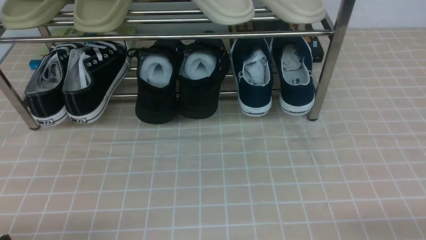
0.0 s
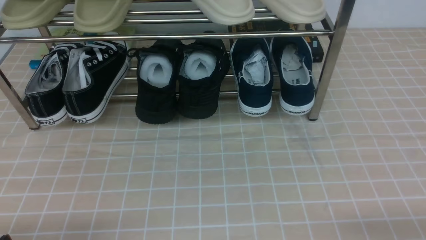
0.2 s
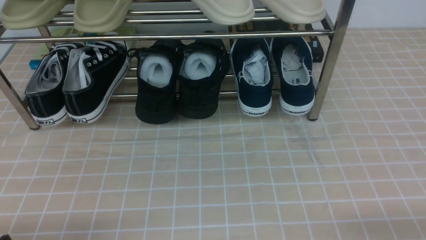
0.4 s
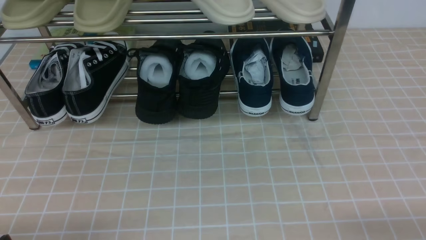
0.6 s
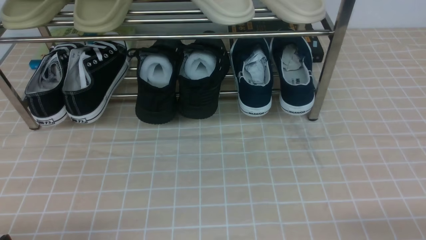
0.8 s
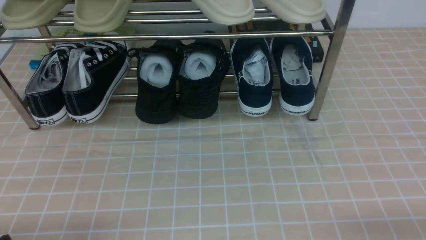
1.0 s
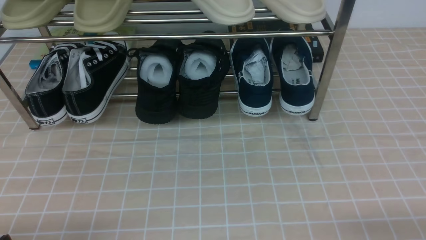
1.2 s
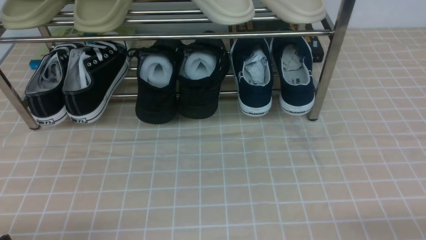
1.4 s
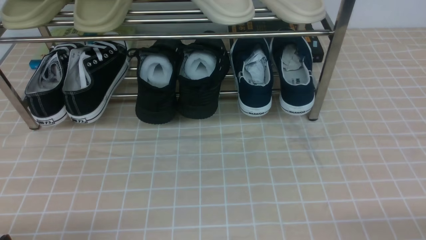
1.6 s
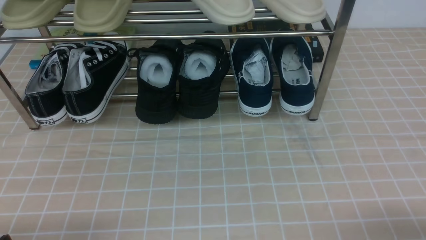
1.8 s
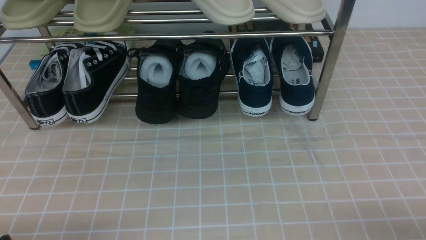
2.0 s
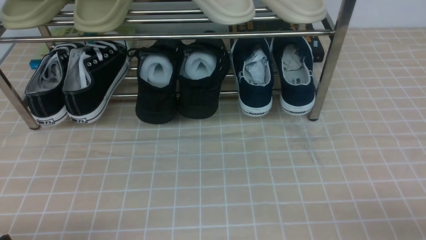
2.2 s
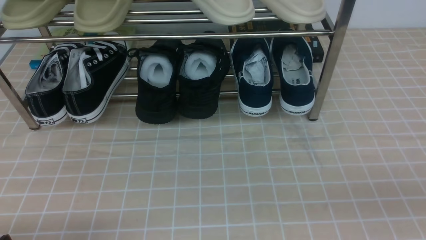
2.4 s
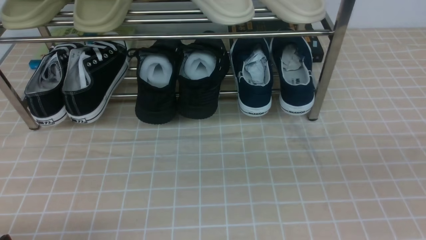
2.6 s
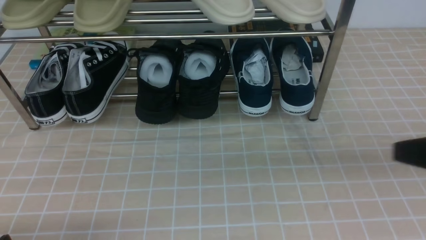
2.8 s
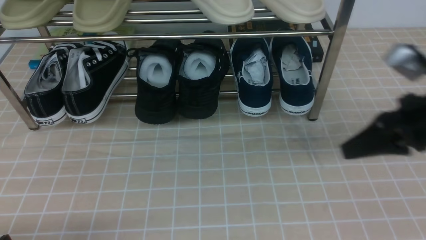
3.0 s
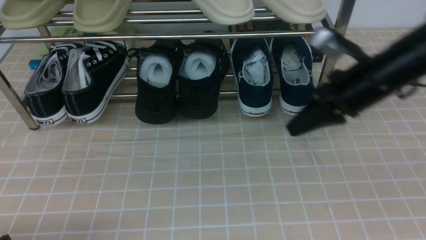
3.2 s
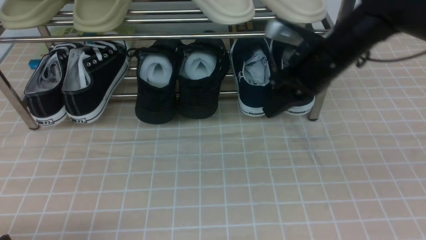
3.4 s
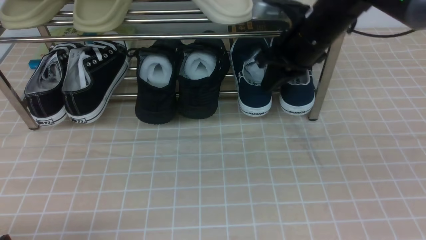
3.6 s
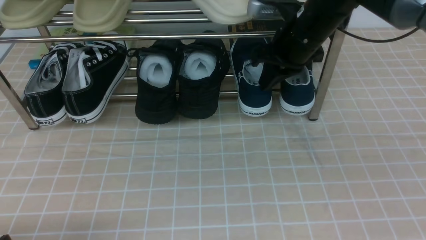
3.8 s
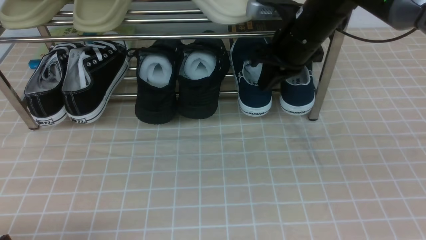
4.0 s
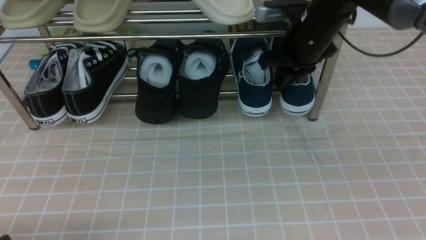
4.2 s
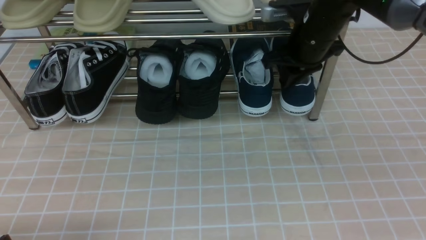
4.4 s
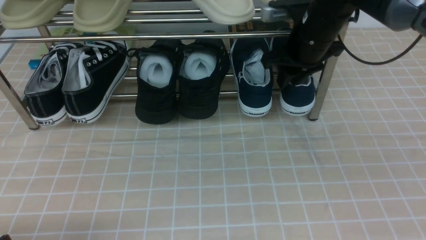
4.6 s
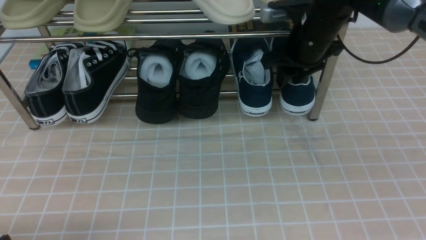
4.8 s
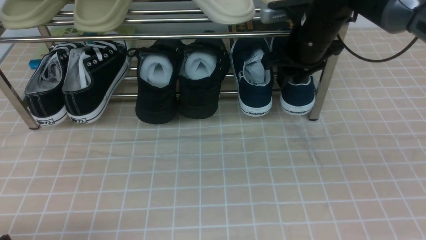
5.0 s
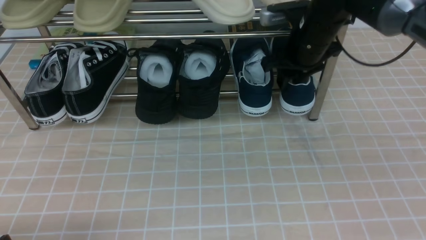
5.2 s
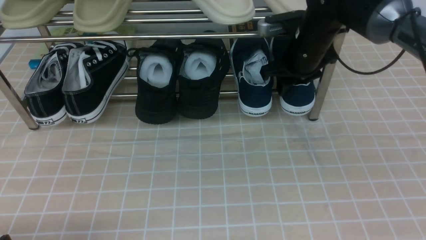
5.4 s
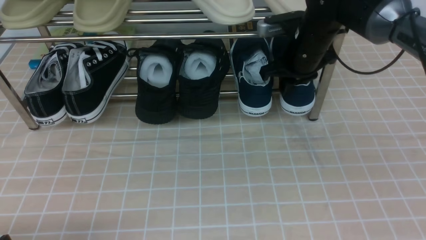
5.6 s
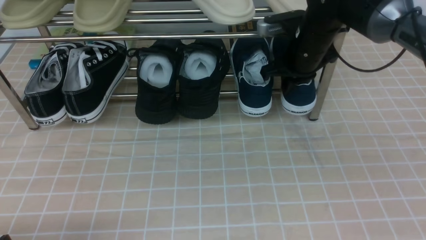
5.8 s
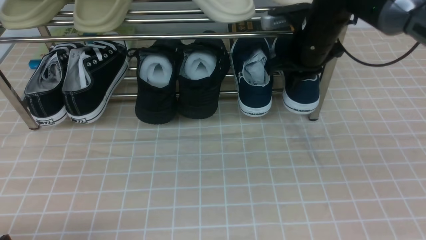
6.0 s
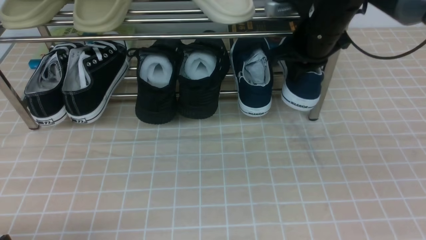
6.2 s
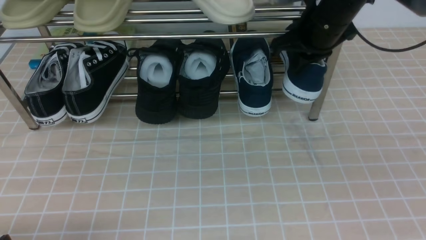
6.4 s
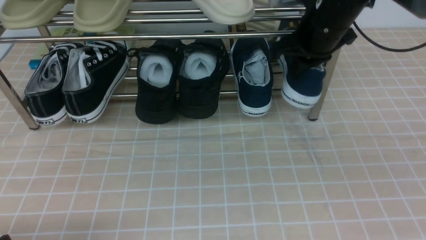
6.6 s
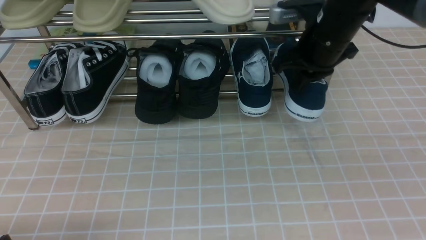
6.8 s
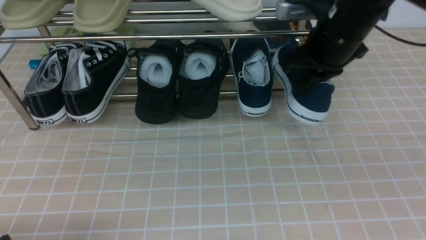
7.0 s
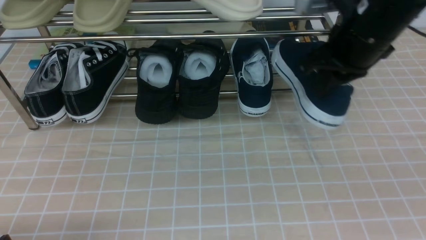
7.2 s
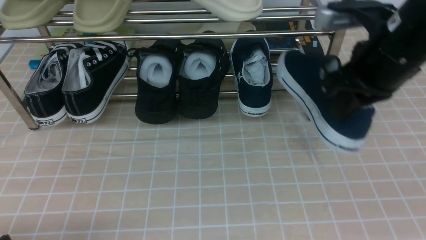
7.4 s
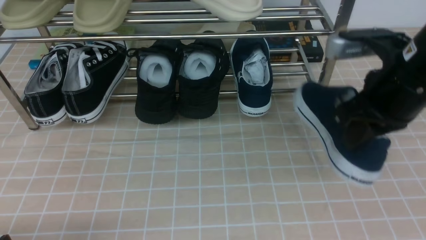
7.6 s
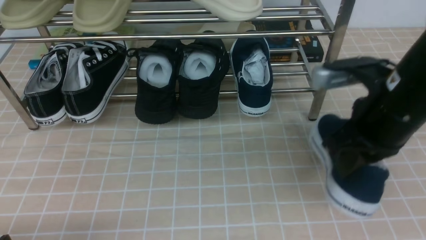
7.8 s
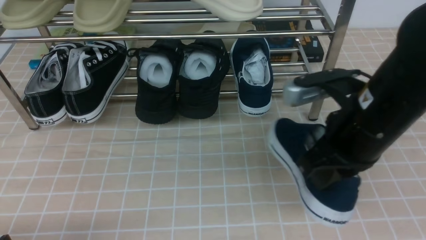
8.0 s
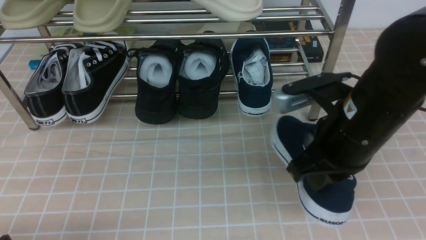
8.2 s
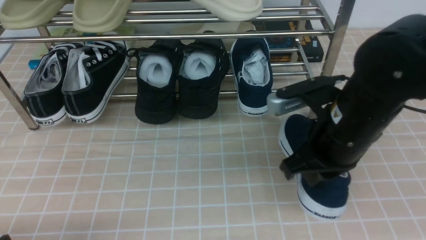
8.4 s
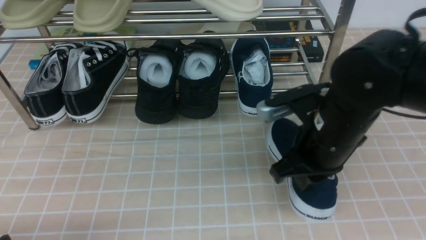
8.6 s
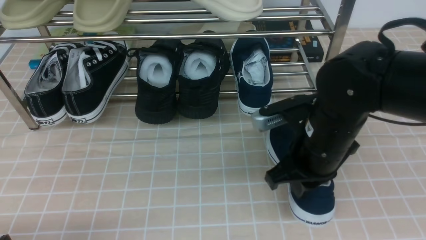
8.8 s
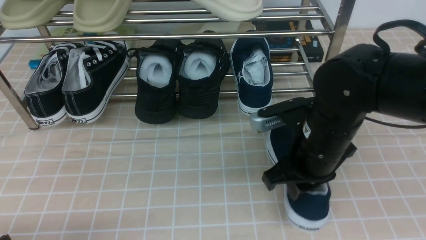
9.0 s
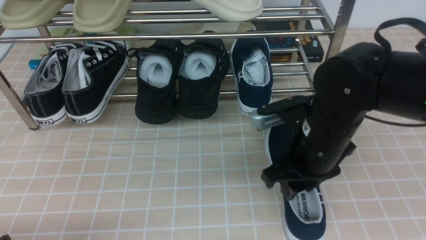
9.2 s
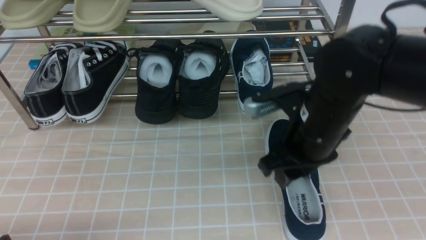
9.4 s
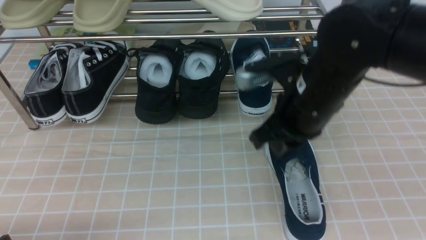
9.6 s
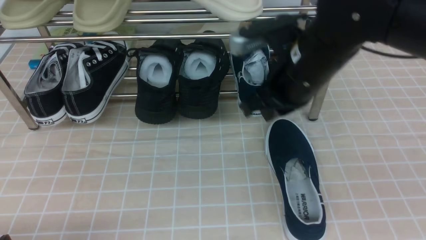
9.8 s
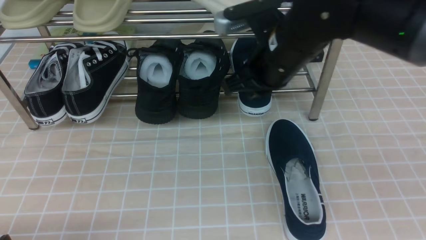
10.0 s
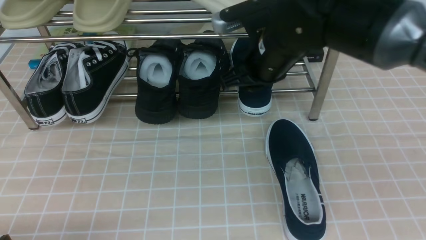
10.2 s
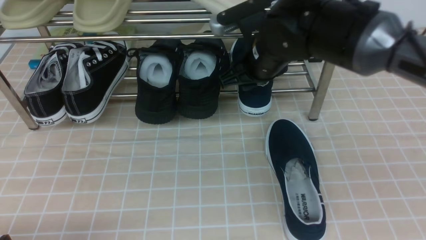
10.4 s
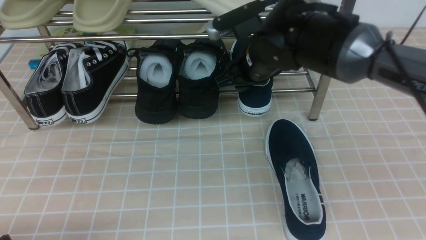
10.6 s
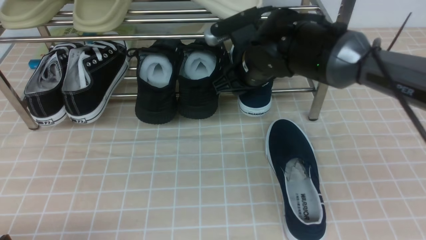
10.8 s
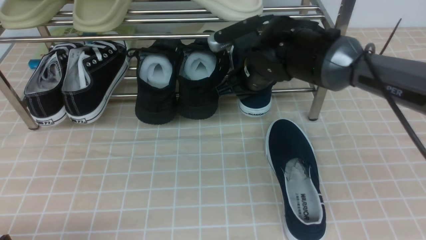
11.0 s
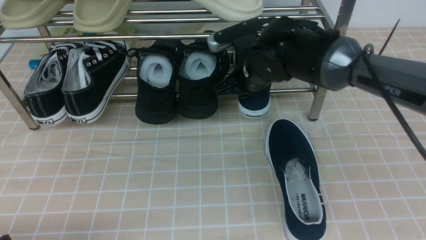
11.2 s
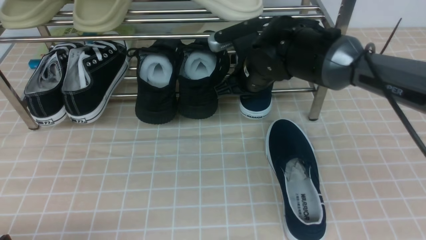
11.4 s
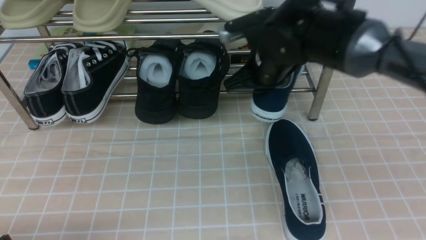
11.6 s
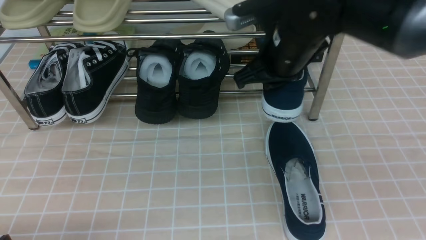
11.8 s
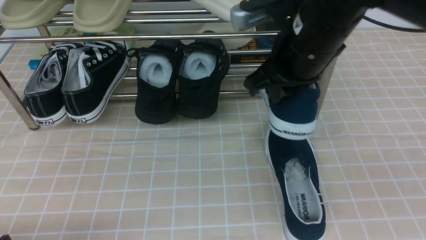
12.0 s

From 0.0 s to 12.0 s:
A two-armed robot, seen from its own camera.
Step, from 0.0 s to 5.6 s: use the right arm to clamp a shoe on the right side of the shoe rack.
Step, from 5.8 s to 9.4 s: use the right arm to take out the clamped shoe from the shoe rack and put it down.
Step, from 9.6 s to 11.0 s: use the right arm to clamp a shoe on the right side of the shoe rack.
From 1.6 s to 3.0 s: The right gripper shifts roughly 25 cm forward and upward, and closes up.
From 3.0 s to 4.4 s: The right gripper heads forward and to the left, covering about 20 cm, and opens its fingers.
From 4.4 s to 6.0 s: The right gripper closes.
From 6.0 s to 7.6 s: The right gripper travels backward by some 15 cm.
From 7.6 s to 9.0 s: The right gripper goes about 10 cm downward and to the left, and opens its fingers.
From 9.0 s to 10.4 s: The right gripper travels forward and to the left by about 15 cm, and opens.
From 10.4 s to 12.0 s: The right gripper shifts about 10 cm backward and upward, and closes up.

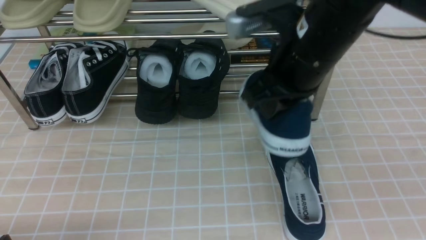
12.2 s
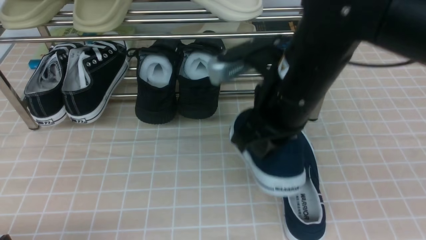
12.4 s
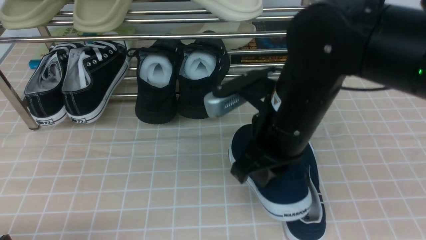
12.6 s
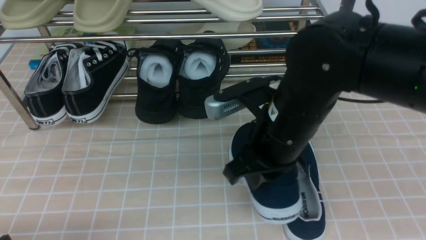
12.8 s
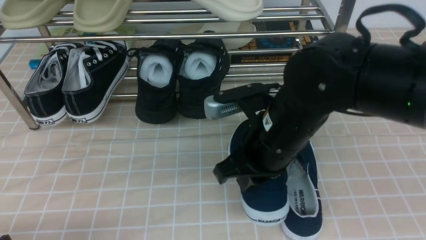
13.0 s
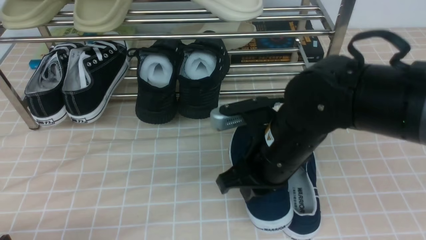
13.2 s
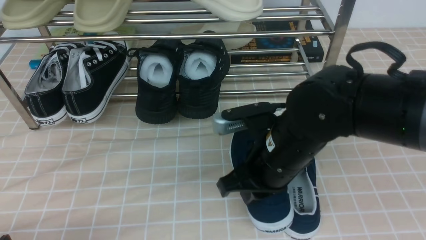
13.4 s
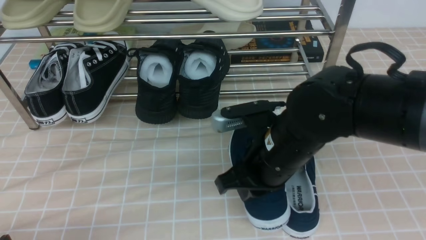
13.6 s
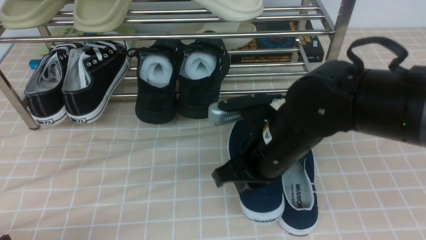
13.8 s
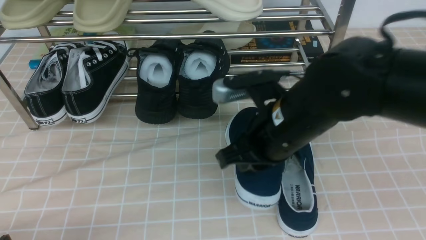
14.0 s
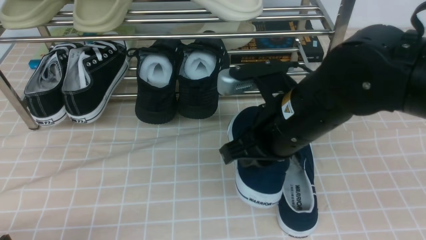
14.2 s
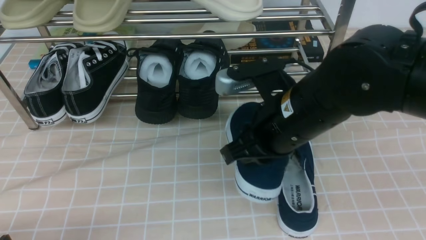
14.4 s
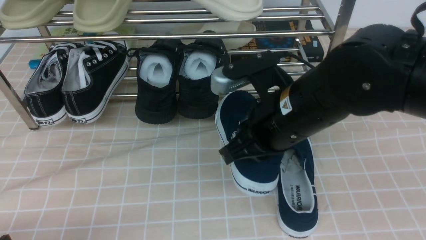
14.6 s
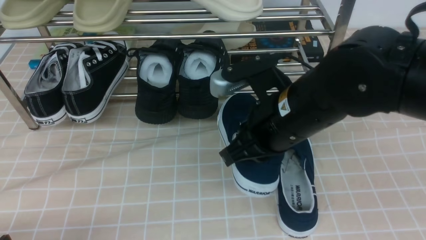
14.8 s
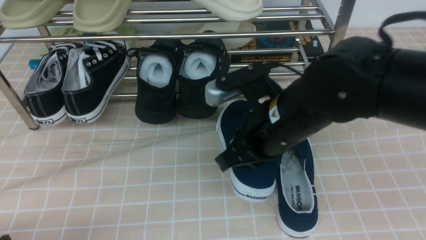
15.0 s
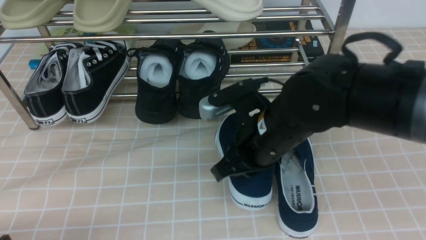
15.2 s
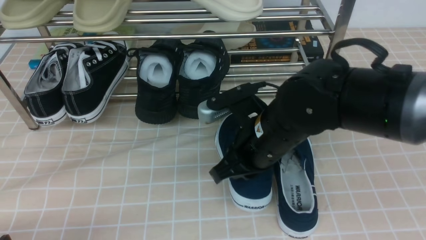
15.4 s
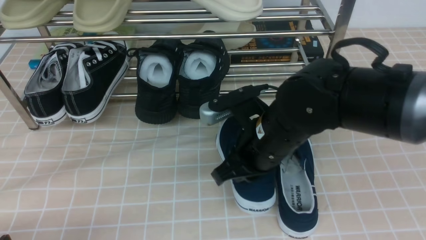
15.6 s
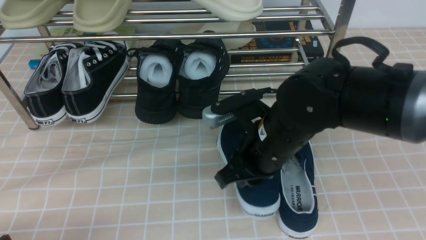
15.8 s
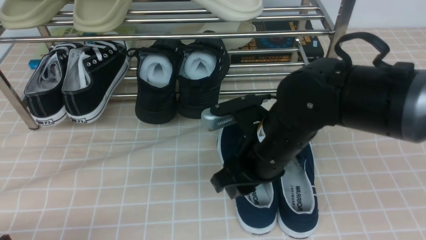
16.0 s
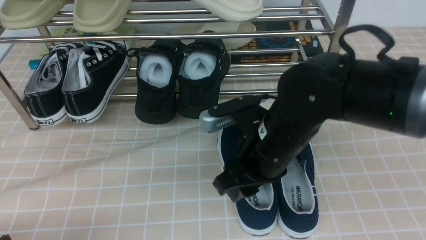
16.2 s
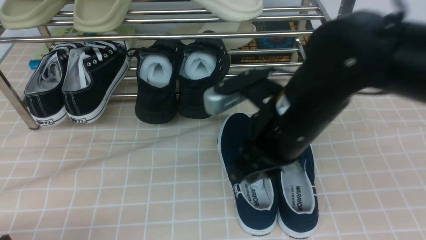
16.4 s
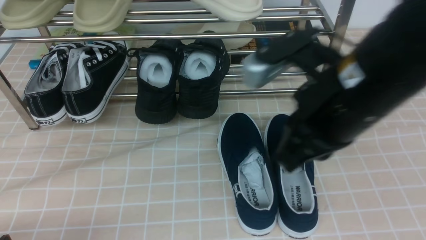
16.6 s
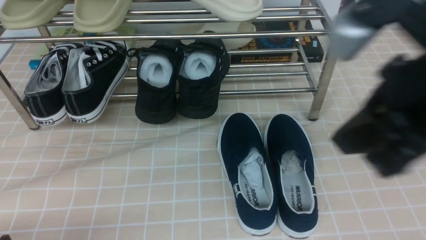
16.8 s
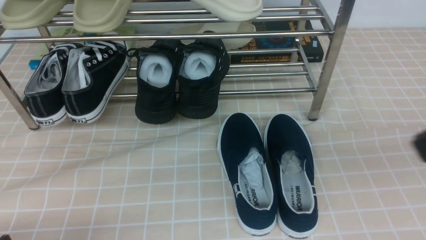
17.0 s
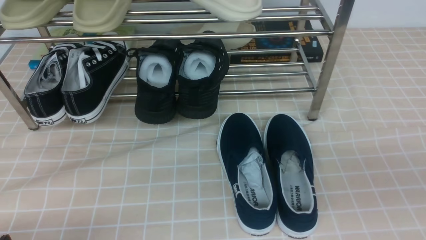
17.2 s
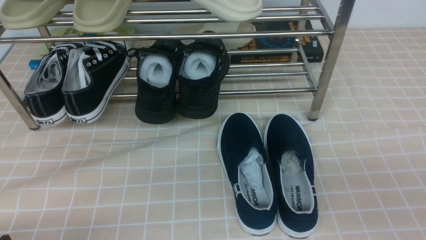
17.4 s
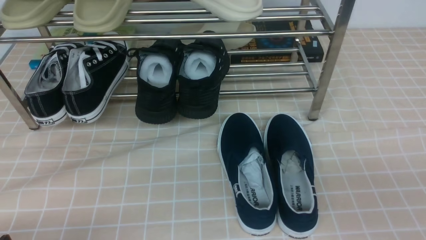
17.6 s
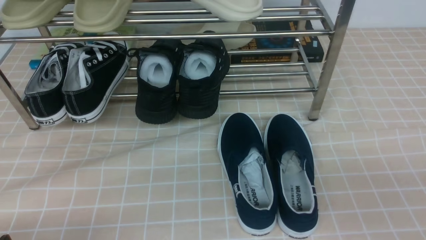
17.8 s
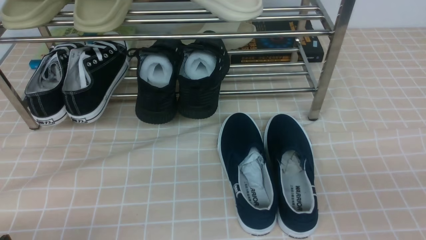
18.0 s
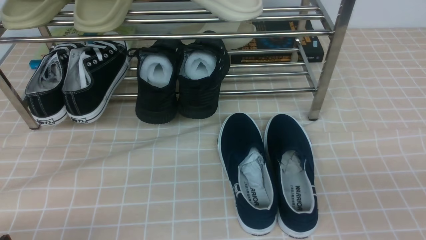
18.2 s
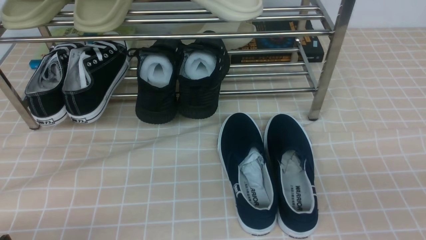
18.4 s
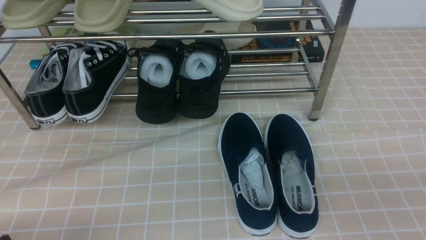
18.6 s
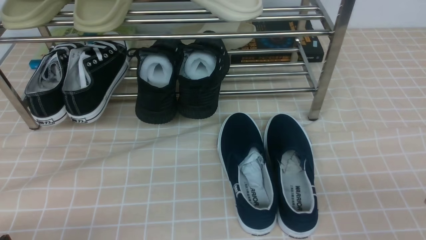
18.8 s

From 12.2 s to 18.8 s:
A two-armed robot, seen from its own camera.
Step, from 12.2 s to 16.0 s: use the right arm to take out the clamped shoe from the shoe rack and put it down.
From 12.2 s to 13.8 s: The right gripper travels downward by some 10 cm.
From 13.8 s to 15.4 s: The grippers make only small movements.
From 15.4 s to 17.2 s: The right gripper goes approximately 30 cm to the right, backward and upward, and opens and closes again.
From 17.2 s to 18.8 s: The right gripper heads downward, covering about 10 cm.
